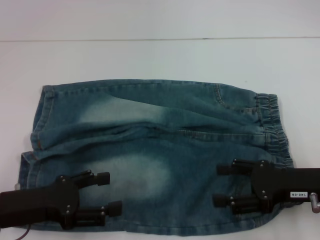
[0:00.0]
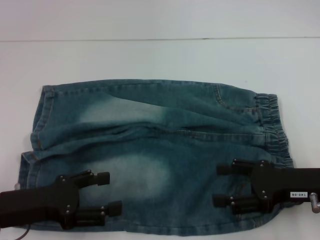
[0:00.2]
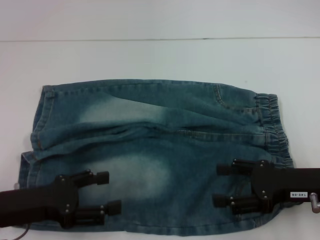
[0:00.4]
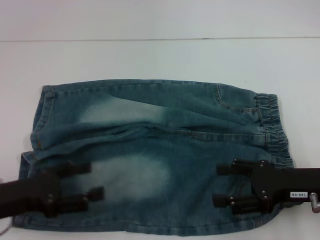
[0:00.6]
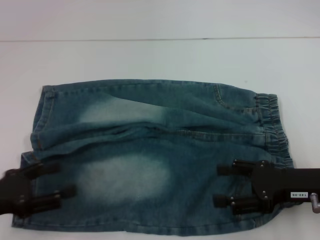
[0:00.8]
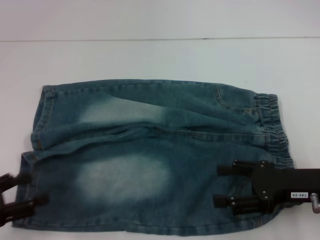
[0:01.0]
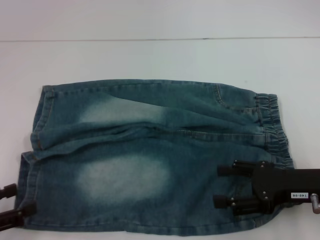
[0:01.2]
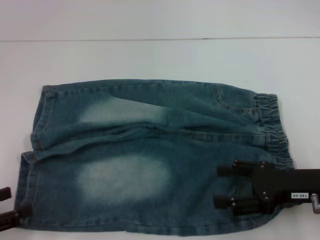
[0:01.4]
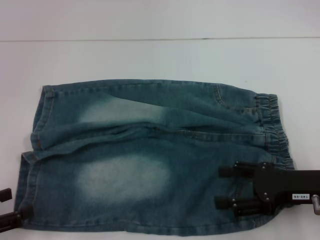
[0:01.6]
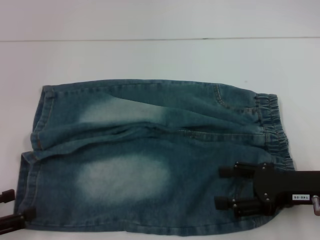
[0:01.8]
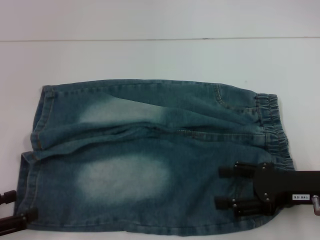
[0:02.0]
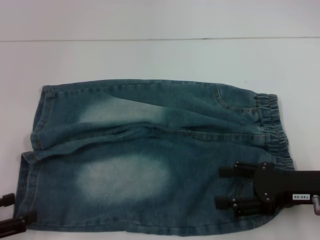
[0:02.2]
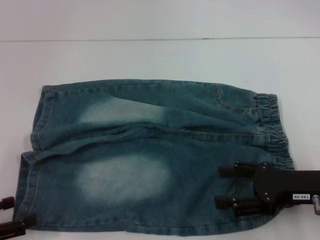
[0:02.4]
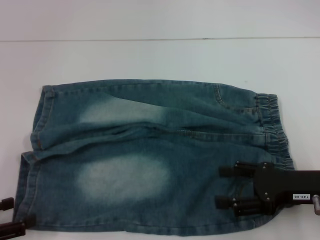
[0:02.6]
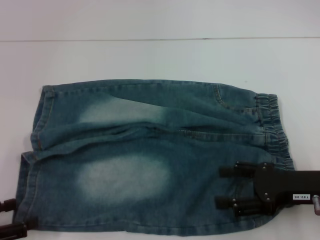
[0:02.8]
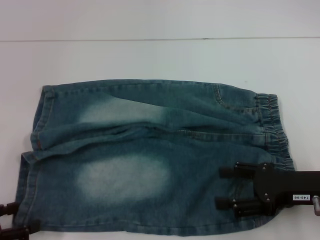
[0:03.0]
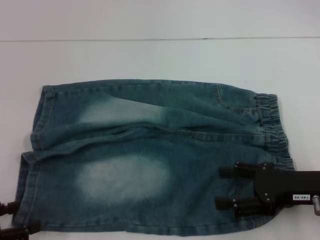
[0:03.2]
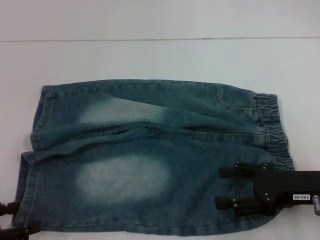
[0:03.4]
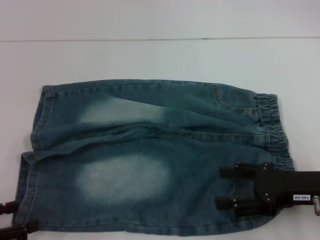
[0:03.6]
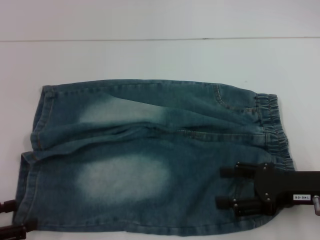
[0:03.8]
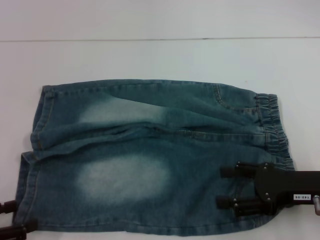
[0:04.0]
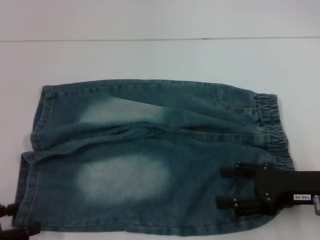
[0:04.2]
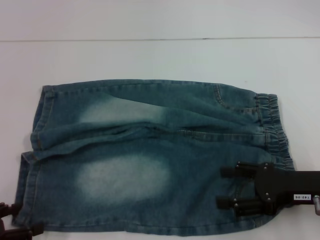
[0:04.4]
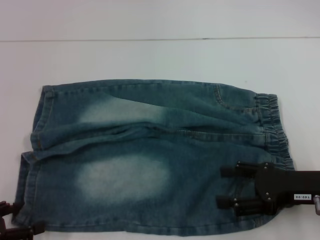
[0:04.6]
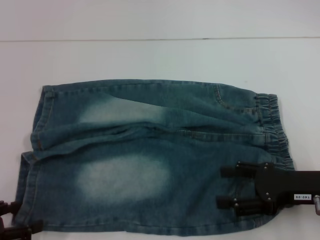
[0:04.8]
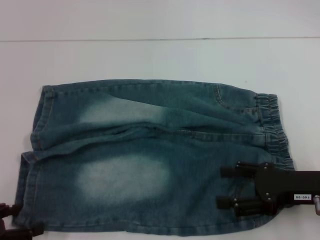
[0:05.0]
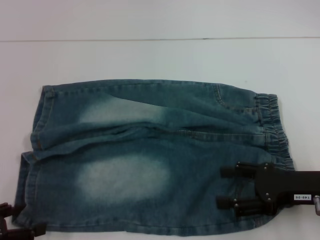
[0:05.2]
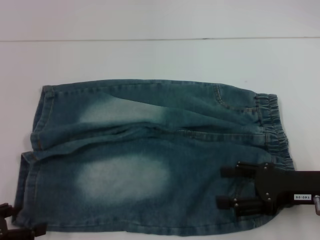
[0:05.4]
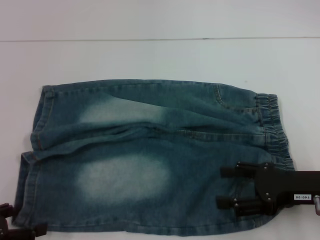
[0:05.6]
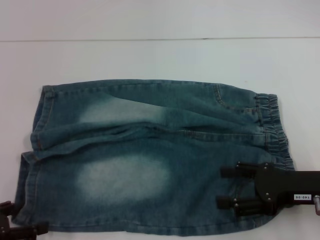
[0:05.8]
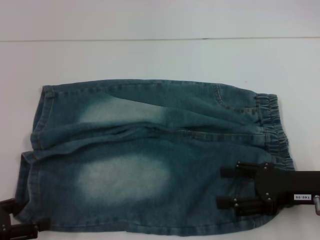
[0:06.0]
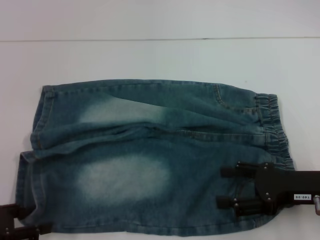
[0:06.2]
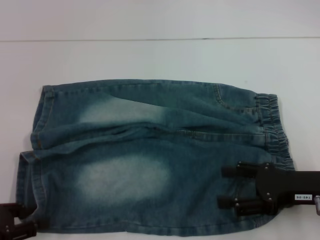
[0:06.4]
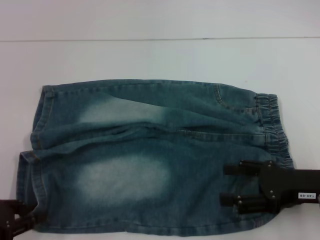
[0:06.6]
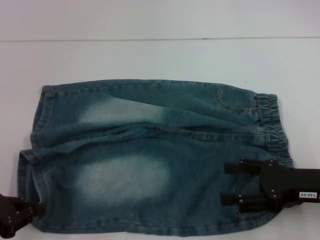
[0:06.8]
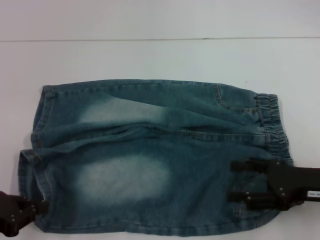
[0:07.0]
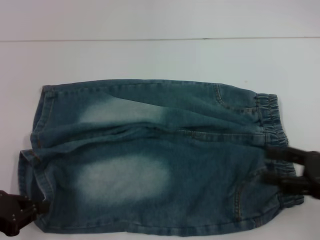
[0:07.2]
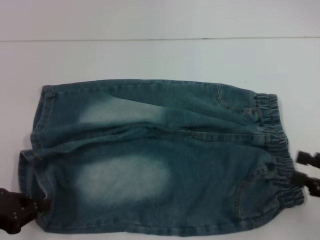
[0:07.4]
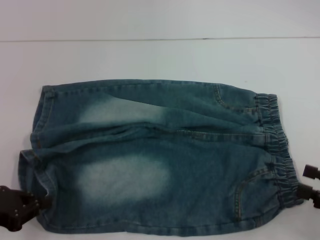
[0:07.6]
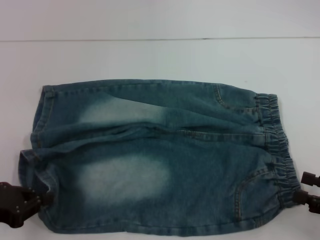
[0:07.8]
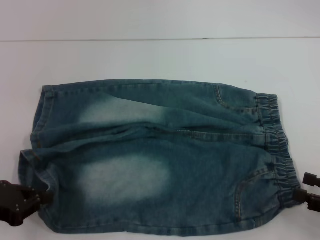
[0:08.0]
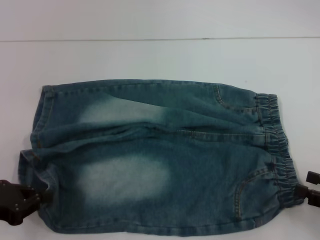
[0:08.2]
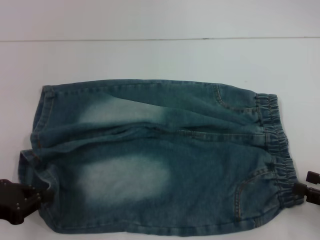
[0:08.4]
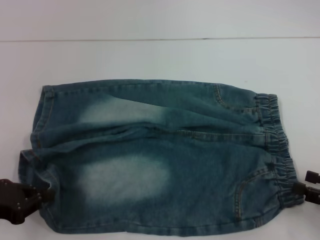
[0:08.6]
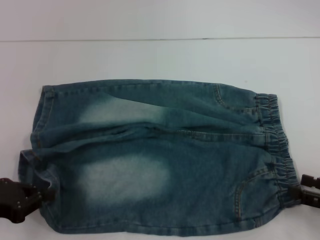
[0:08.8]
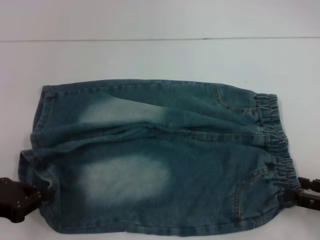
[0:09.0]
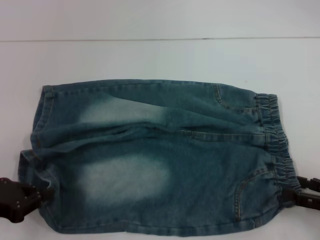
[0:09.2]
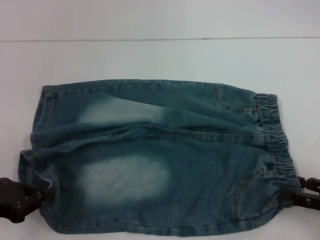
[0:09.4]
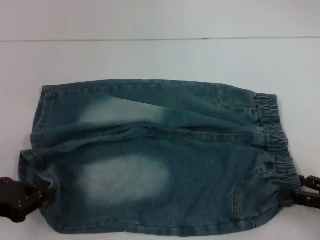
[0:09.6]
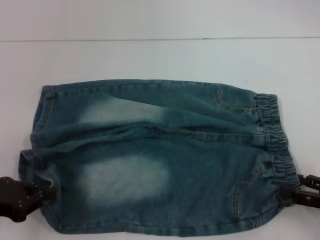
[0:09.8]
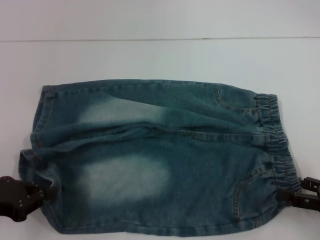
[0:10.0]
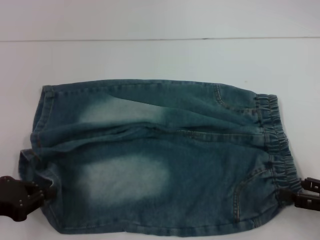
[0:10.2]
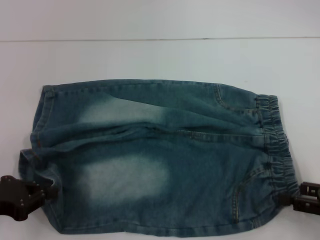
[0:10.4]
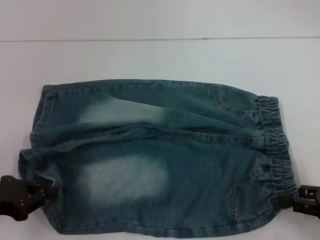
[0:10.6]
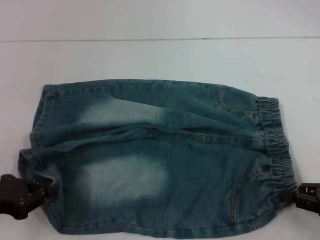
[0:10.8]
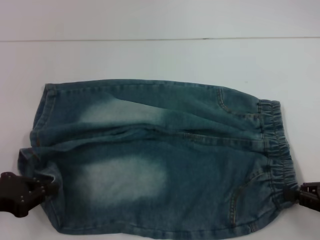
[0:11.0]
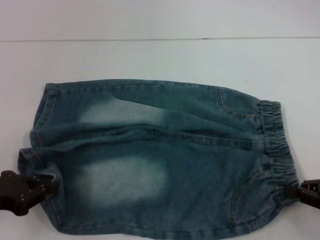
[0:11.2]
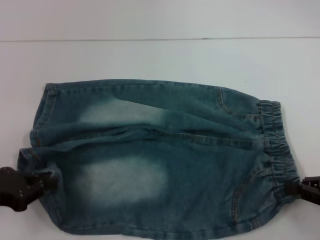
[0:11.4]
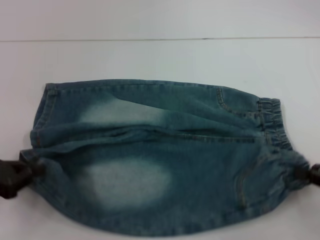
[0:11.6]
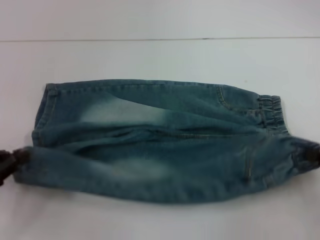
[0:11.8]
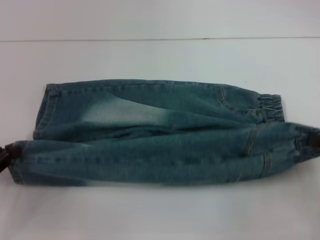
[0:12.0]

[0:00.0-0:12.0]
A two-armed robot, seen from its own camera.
Step, 0:00.0 to 0:06.4: Grab the lower left pant leg with your left hand.
Step, 0:06.6 to 0:10.8: Hold the lower right waistband with your right hand.
0:00.0 to 0:01.6: The left gripper travels to the left and backward by roughly 10 cm.
0:01.6 to 0:03.0: The grippers move only a little.
0:03.0 to 0:04.4: Both grippers stay about where they are.
0:06.0 to 0:07.6: The right gripper moves to the right and backward, about 10 cm, while the left gripper closes its fingers.
0:07.6 to 0:10.4: The grippers make only small movements.
0:10.4 to 0:12.0: The right gripper closes its fingers.

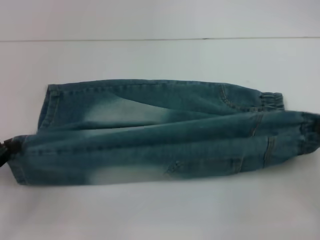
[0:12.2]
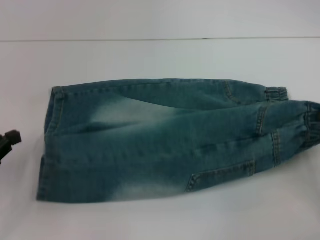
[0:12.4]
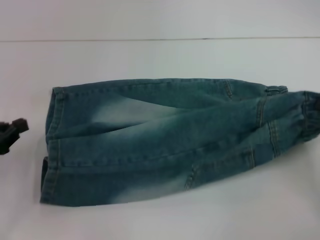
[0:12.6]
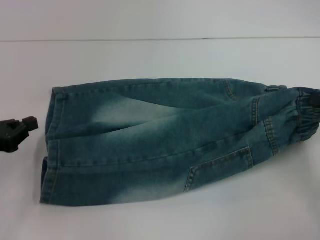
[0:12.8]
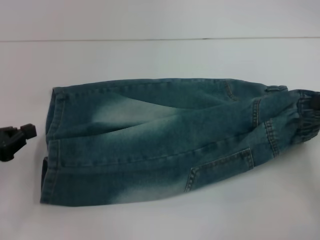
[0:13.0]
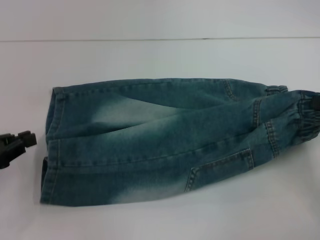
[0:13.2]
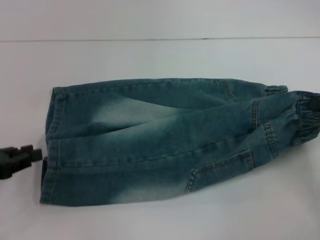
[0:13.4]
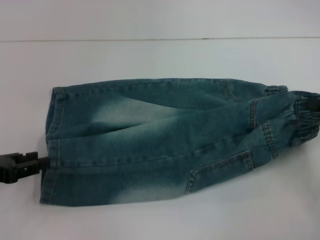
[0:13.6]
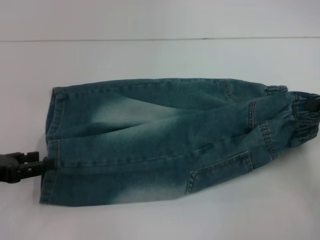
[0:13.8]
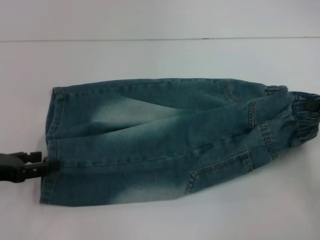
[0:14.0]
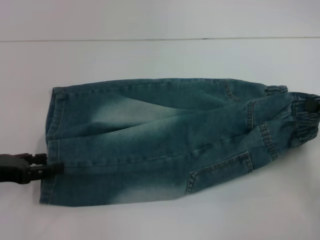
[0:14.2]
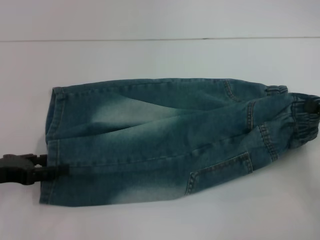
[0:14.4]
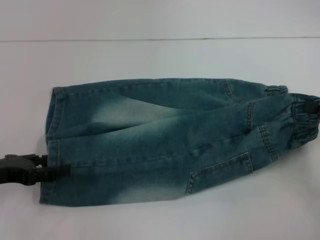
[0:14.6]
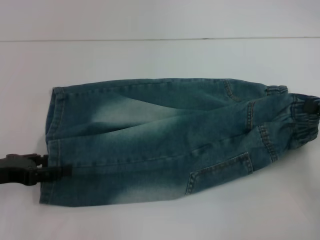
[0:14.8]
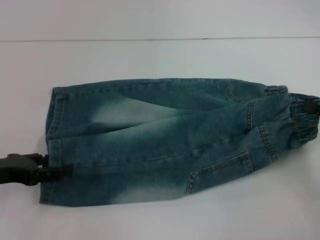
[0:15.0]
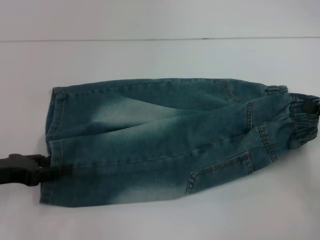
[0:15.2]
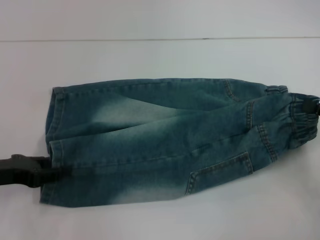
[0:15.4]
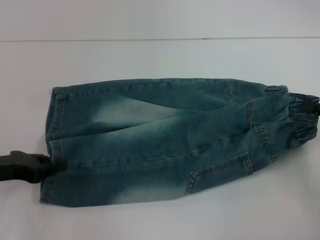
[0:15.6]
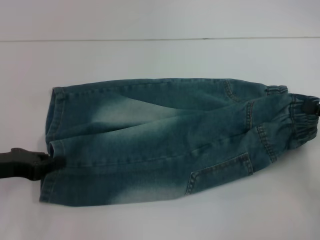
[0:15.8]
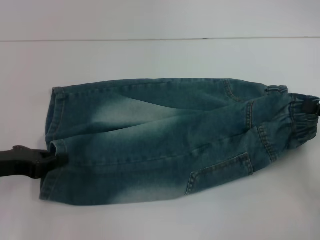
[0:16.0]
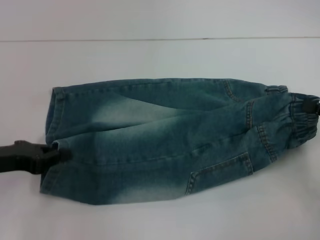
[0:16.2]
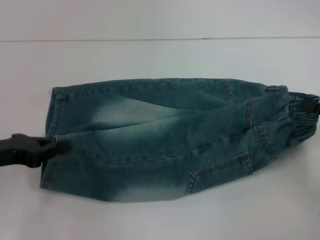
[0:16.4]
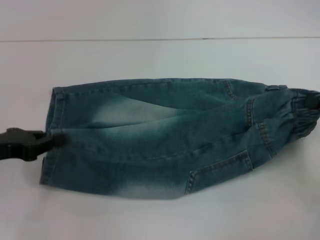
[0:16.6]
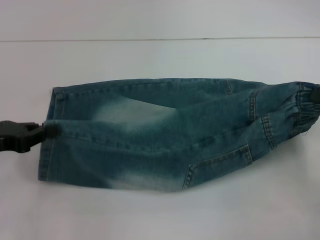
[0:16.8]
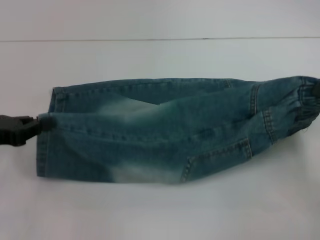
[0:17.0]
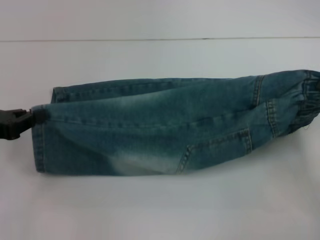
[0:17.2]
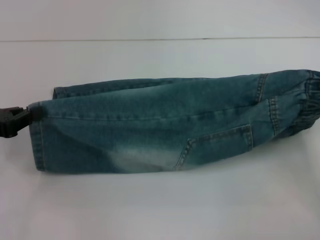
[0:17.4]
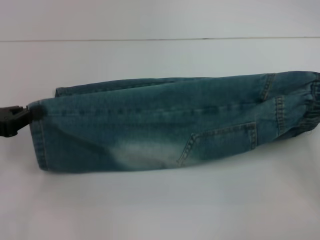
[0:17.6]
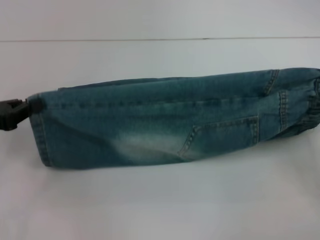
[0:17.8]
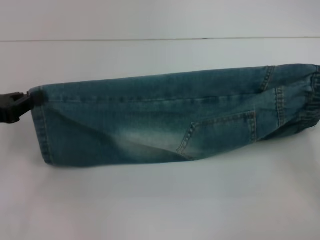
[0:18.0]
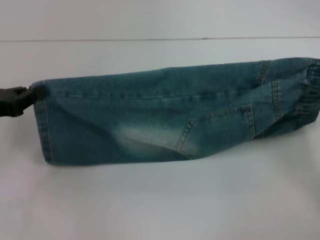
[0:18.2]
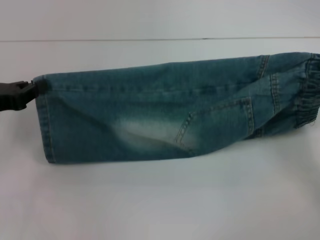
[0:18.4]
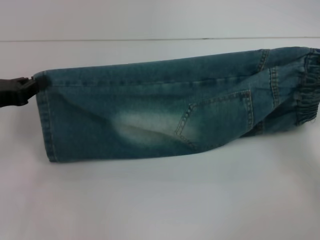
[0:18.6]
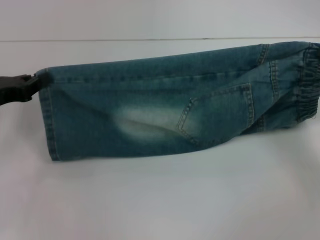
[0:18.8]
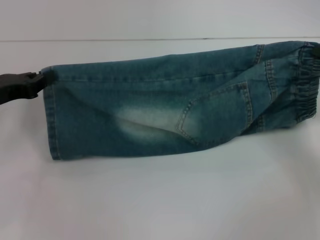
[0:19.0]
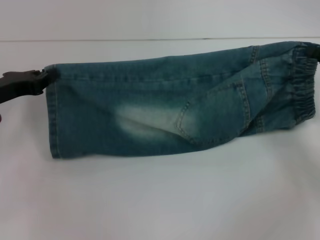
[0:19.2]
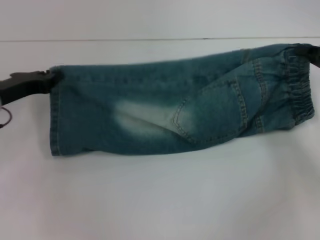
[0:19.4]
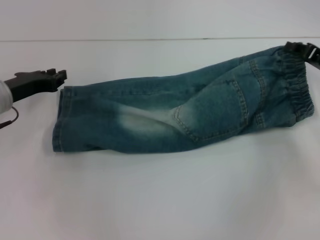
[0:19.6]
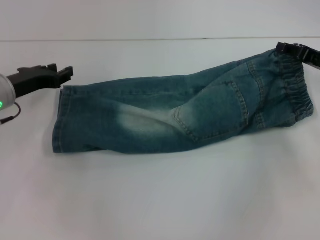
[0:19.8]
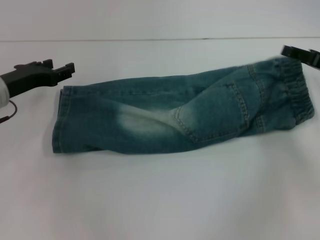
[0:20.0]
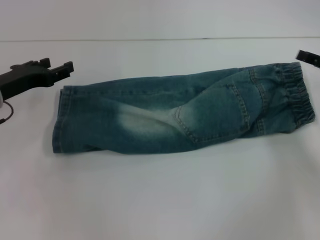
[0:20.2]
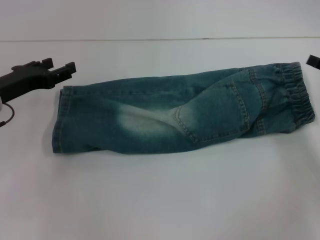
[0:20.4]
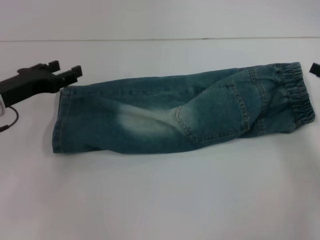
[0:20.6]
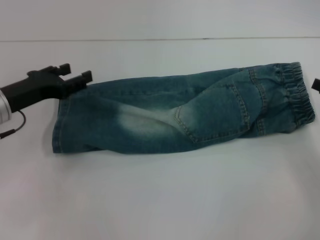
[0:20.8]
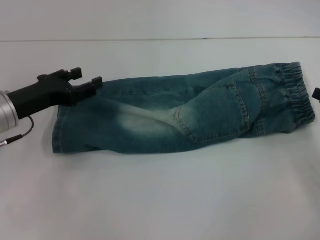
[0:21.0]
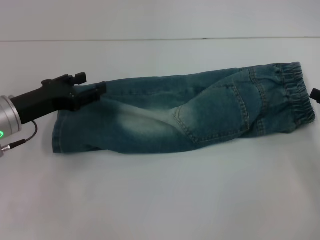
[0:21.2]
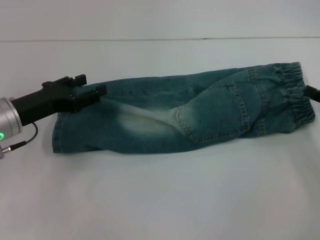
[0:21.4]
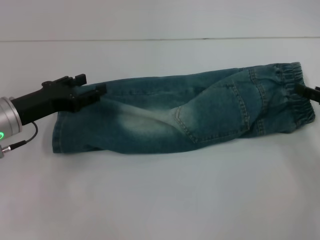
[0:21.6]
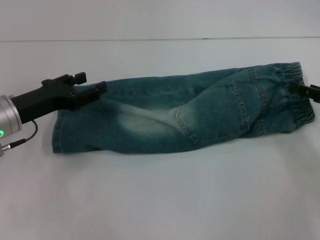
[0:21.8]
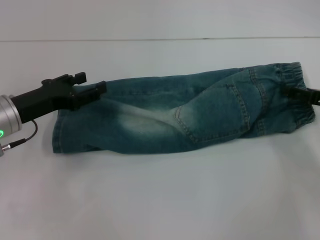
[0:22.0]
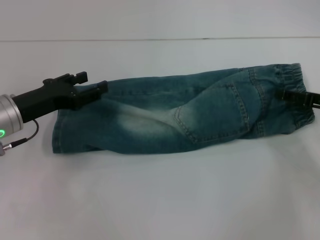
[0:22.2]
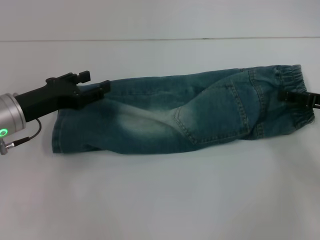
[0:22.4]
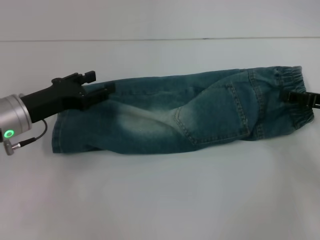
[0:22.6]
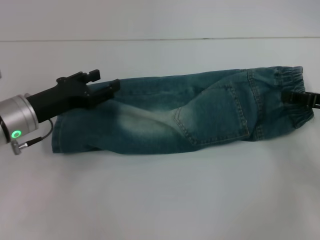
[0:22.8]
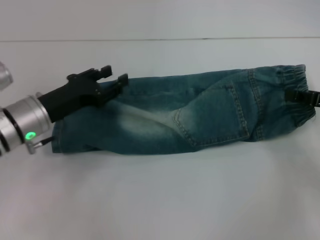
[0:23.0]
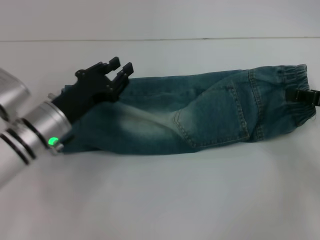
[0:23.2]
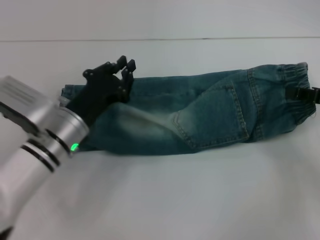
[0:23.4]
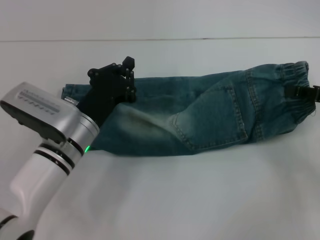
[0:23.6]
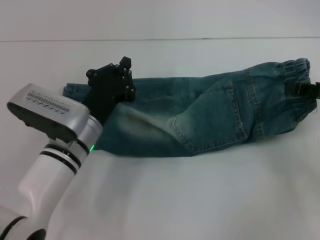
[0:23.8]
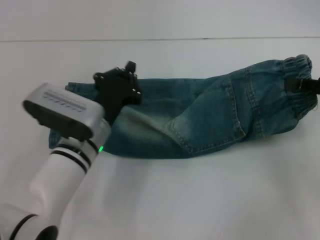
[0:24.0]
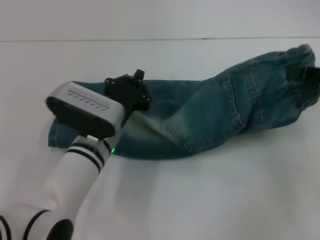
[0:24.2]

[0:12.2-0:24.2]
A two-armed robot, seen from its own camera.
Step, 0:12.2 to 0:20.4: Fold upward with your right hand.
Step, 0:20.6 to 0:23.0: Grab the waistband with your right hand.
0:12.2 to 0:13.8: The left gripper opens up.
0:13.8 to 0:15.2: The grippers move only a little.
0:15.2 to 0:16.6: The left gripper closes.
0:18.2 to 0:19.8: The right gripper moves forward and to the left, some 10 cm, while the left gripper travels forward and to the right by roughly 10 cm, and opens up.
0:19.8 to 0:21.2: The right gripper shifts about 10 cm backward and to the right, and opens; the left gripper ends up approximately 5 cm from where it was, and opens.
0:21.2 to 0:22.6: The right gripper is displaced forward by approximately 5 cm, and closes up.
0:22.6 to 0:24.2: The right gripper heads upward, covering about 5 cm, and closes up, while the left gripper moves to the right, about 15 cm, and closes its fingers.
